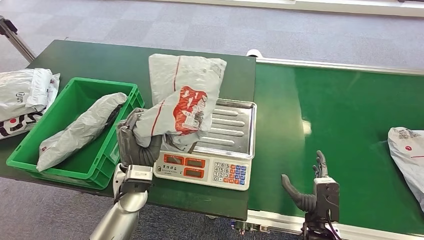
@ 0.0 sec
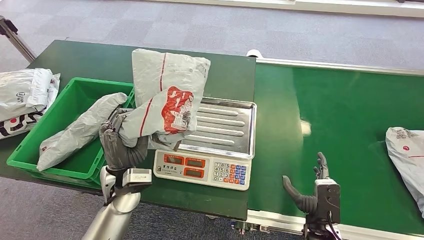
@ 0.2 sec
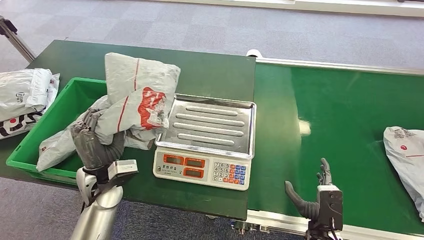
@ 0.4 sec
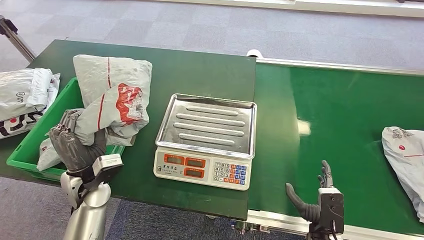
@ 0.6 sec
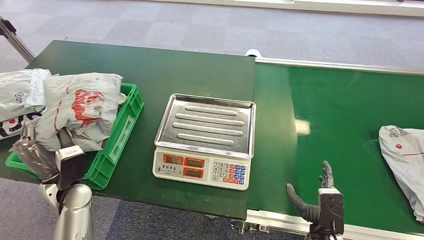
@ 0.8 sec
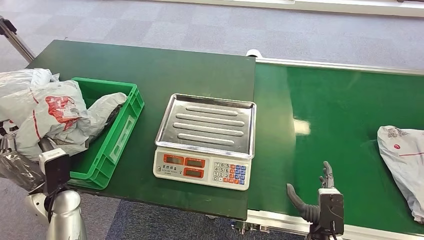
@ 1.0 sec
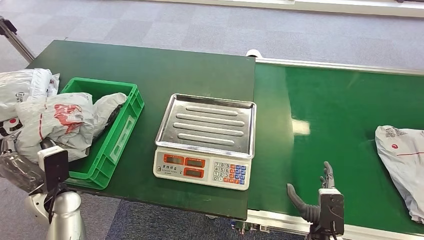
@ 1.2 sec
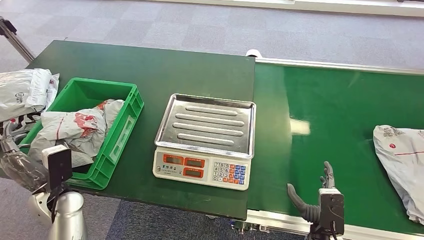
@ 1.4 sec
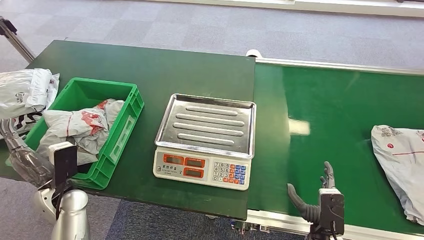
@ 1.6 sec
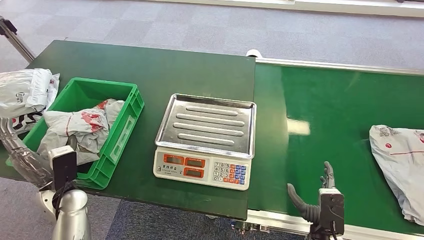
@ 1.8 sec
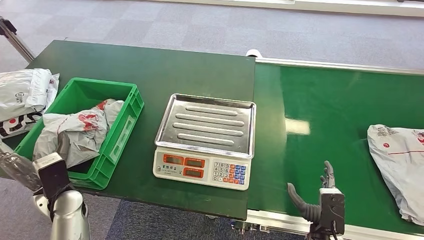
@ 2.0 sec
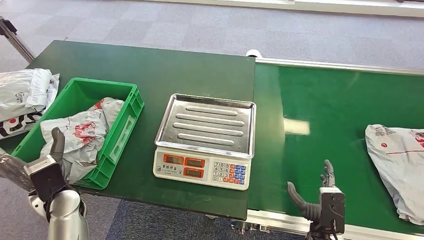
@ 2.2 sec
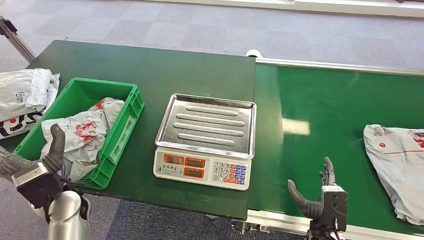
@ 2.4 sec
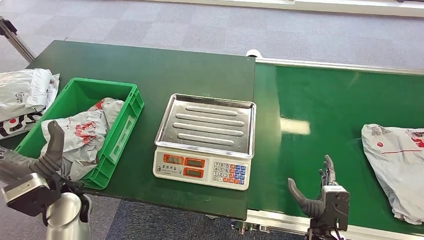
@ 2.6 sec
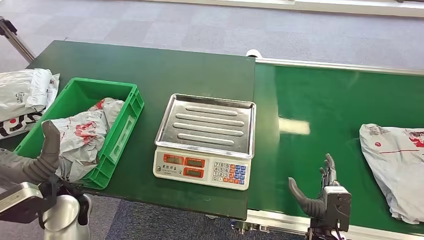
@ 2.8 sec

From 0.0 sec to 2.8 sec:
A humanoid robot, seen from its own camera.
Task of the whole recording: Weigh the package on the weighing device and place it in the left basket.
Step, from 1.2 sec to 2.6 sec: Place the package into the parcel locker.
From 1.4 sec to 2.8 sec: The left hand shifts some 10 cm upward and to the right.
